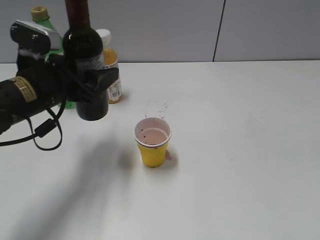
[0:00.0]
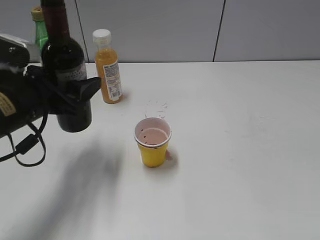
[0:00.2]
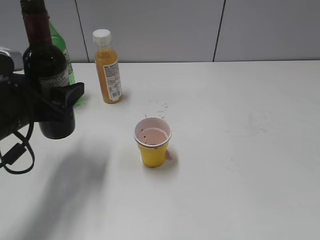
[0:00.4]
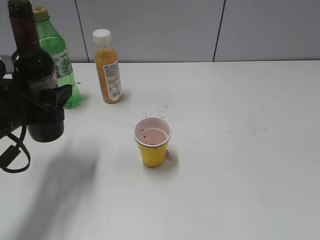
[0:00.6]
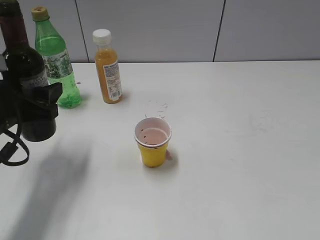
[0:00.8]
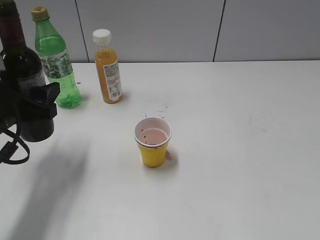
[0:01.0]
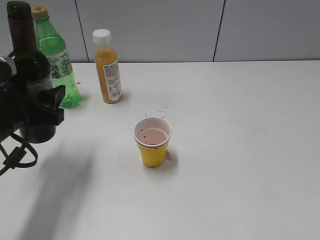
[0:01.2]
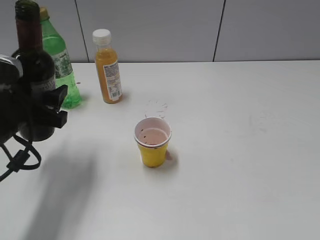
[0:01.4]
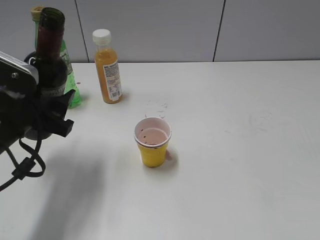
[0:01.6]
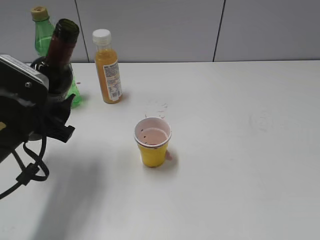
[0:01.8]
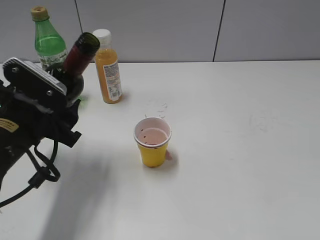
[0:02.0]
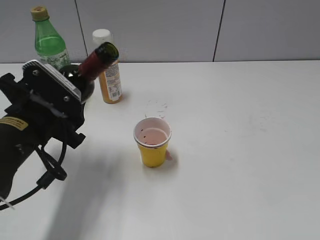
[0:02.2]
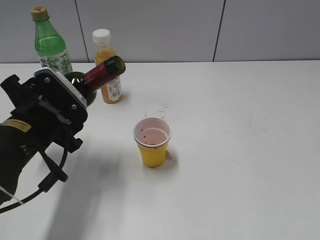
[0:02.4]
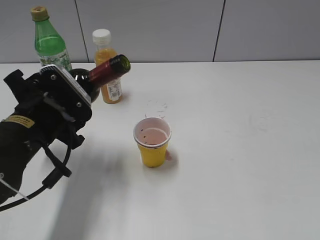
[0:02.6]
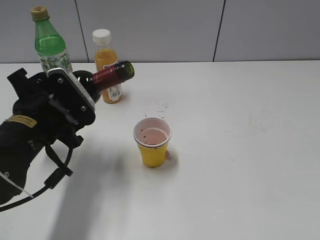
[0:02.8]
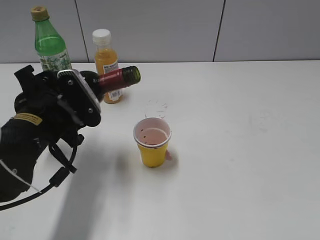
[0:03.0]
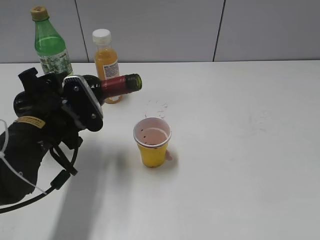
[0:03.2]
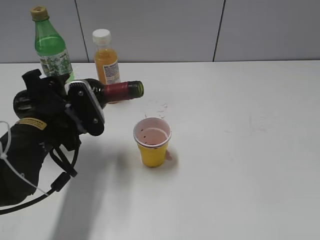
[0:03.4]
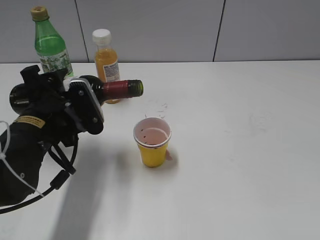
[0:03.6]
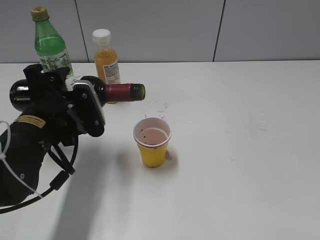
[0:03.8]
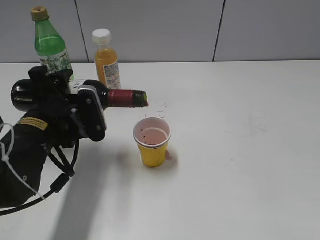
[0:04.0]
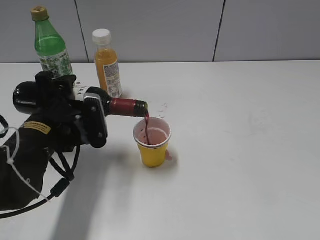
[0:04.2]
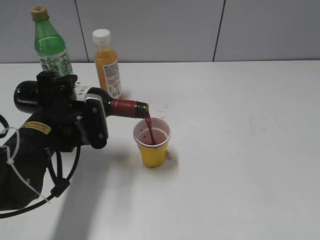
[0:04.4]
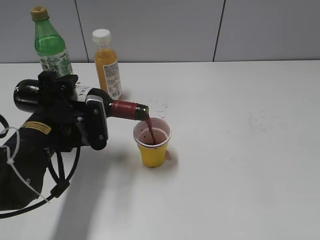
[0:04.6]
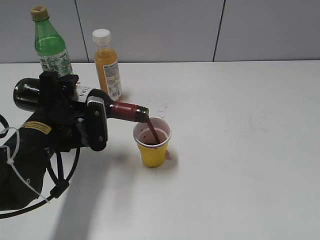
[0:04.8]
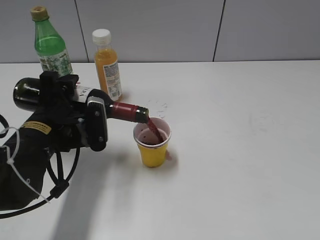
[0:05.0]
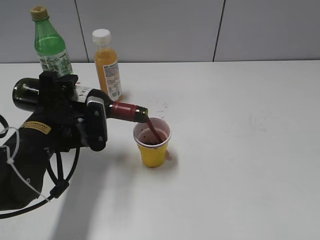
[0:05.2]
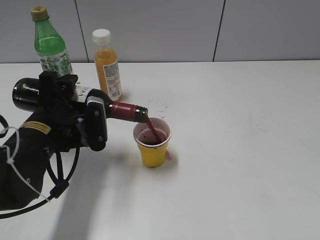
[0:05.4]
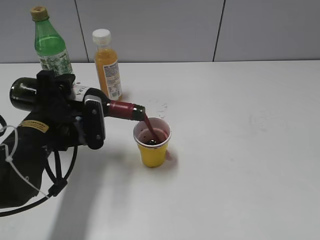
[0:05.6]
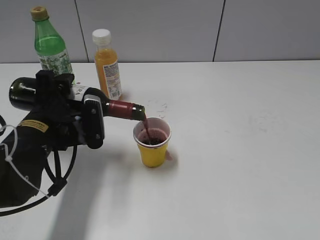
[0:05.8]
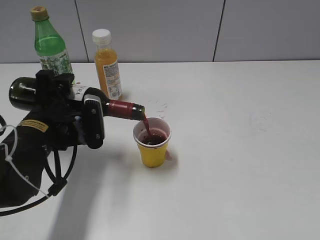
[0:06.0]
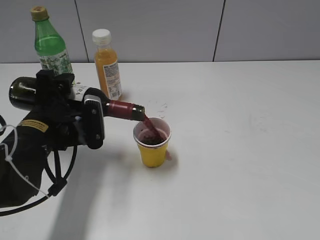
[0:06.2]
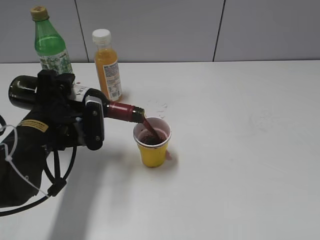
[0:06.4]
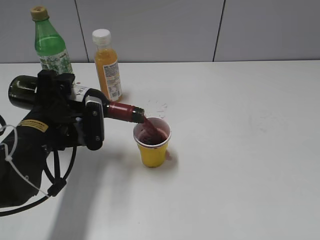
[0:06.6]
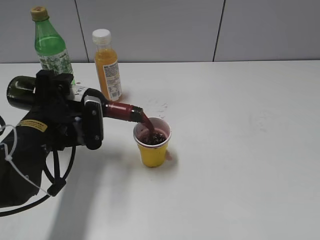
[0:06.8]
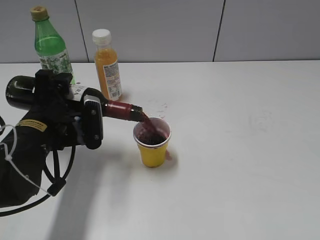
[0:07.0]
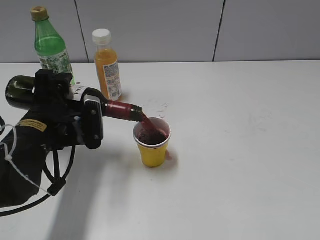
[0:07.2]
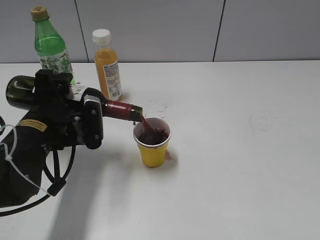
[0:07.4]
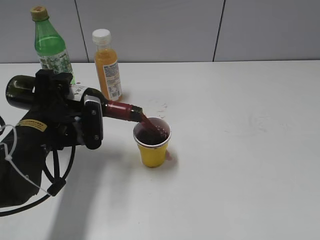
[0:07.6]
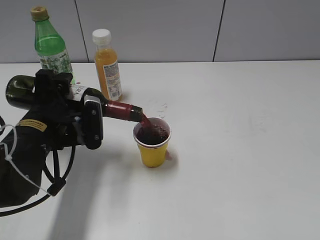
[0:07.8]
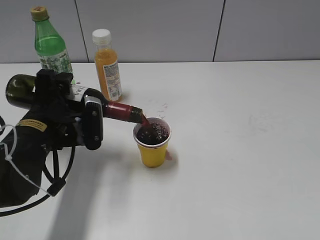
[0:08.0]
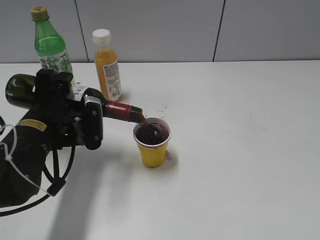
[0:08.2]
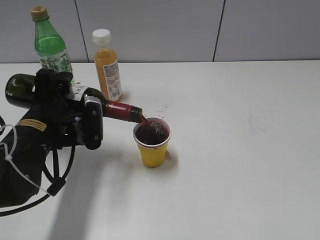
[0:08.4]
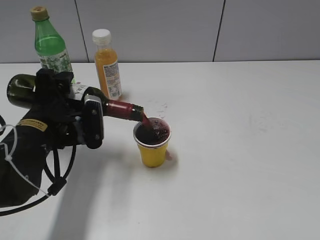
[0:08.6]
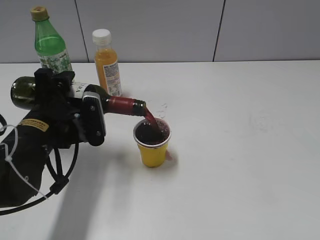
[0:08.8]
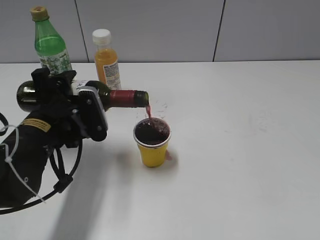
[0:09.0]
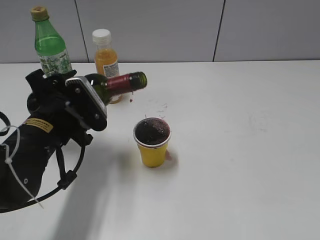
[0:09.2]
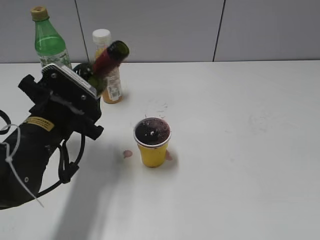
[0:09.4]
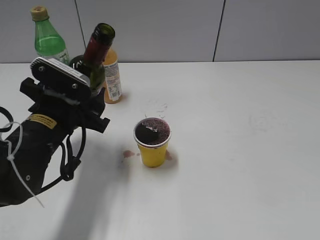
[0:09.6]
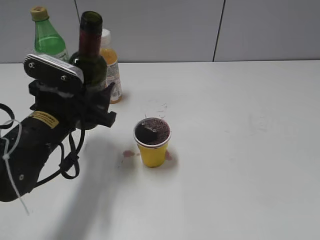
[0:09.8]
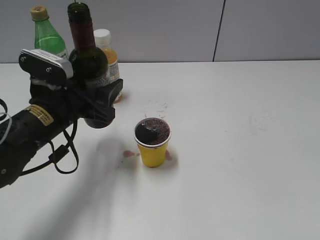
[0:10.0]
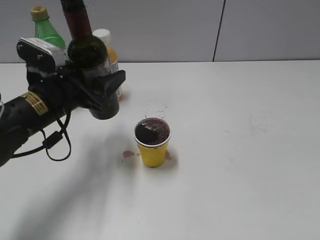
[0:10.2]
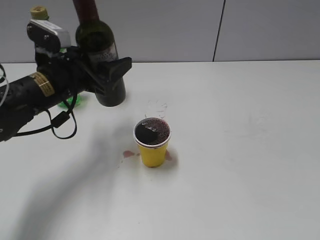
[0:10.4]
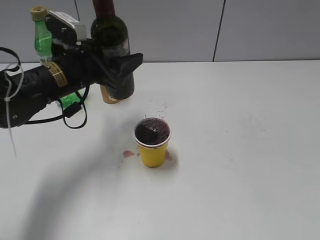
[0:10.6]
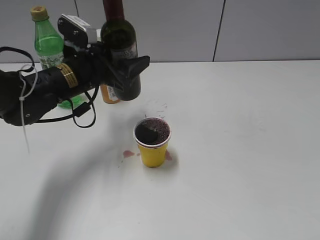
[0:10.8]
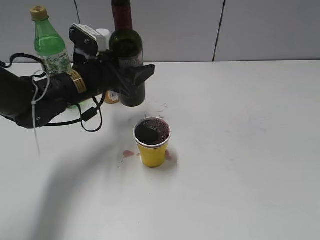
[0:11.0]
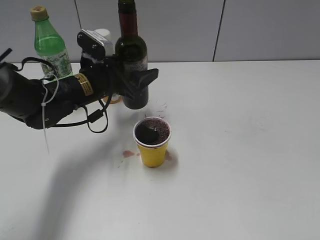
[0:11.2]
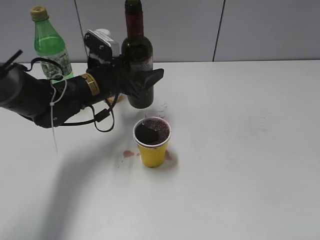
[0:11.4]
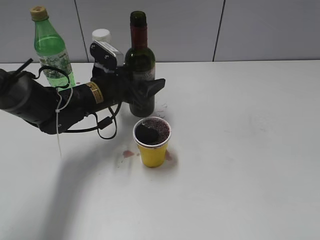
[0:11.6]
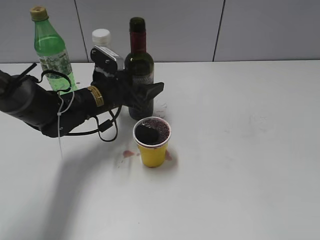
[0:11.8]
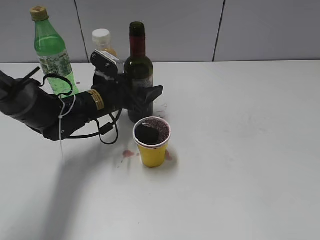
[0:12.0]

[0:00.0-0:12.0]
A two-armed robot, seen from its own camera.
Step, 0:00.0 to 0:09.4: Pour the red wine from bottle to cup with left gripper.
0:00.0 to 0:01.6: The left gripper goes roughly 5 cm backward.
0:04.4 to 0:06.0: The two grippers keep their place.
0:06.0 to 0:07.6: The two grippers keep their place.
0:07.6 to 0:09.0: The grippers move only a little.
0:09.0 to 0:10.4: The left gripper is displaced forward by about 5 cm.
0:10.4 to 0:12.0: The left gripper goes approximately 10 cm downward, forward and to the right.

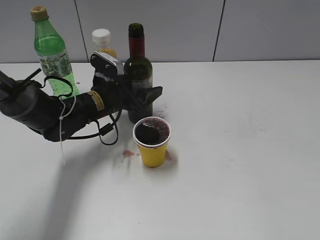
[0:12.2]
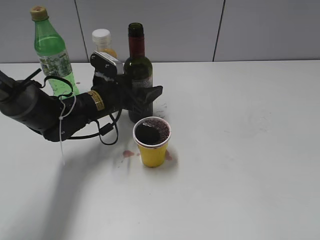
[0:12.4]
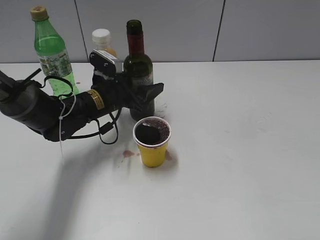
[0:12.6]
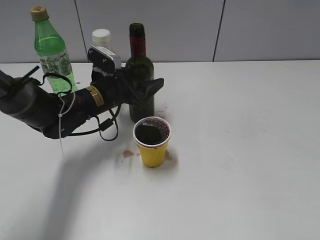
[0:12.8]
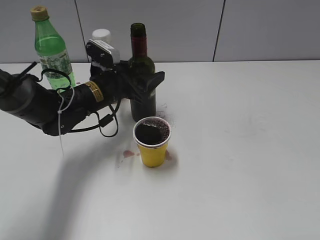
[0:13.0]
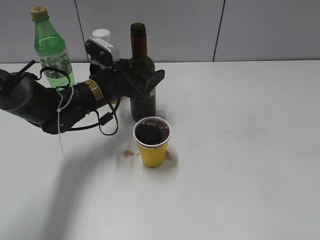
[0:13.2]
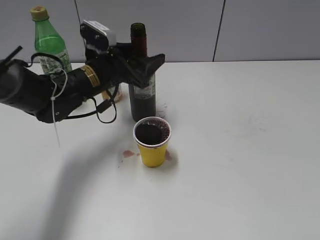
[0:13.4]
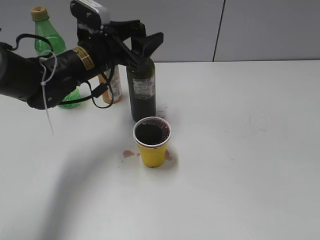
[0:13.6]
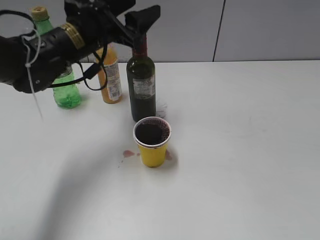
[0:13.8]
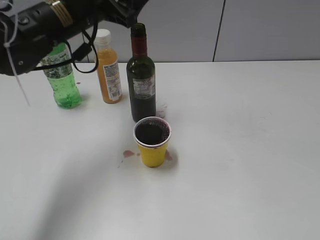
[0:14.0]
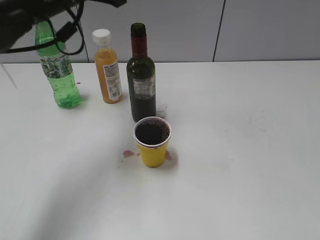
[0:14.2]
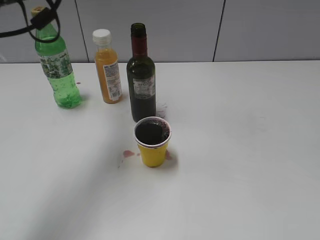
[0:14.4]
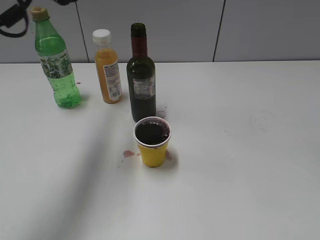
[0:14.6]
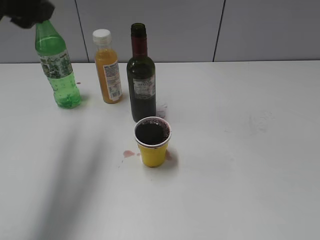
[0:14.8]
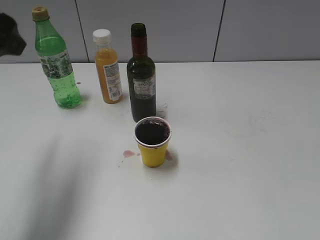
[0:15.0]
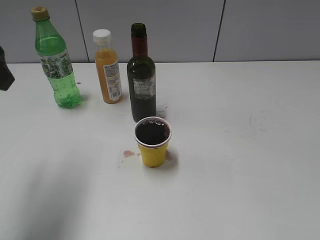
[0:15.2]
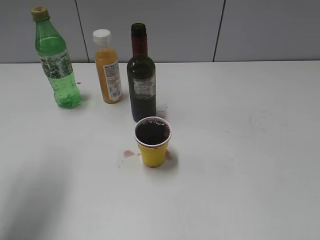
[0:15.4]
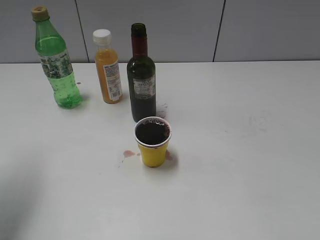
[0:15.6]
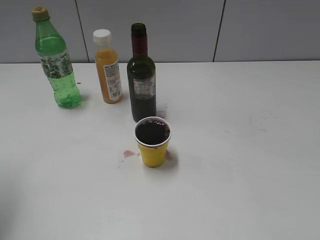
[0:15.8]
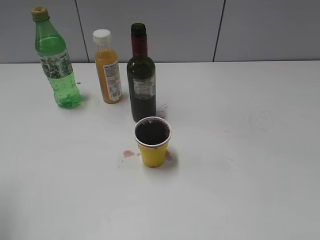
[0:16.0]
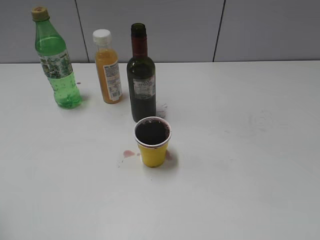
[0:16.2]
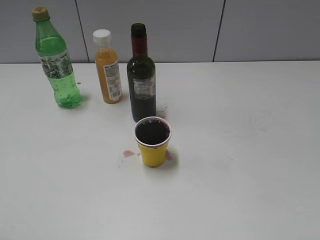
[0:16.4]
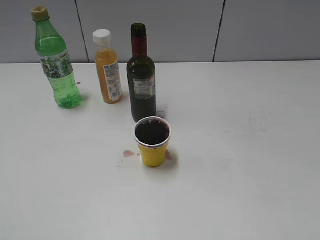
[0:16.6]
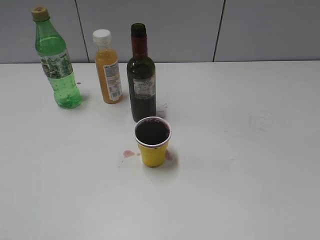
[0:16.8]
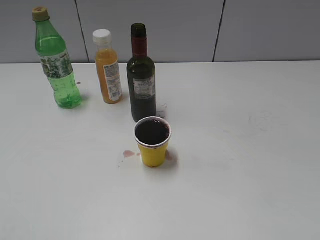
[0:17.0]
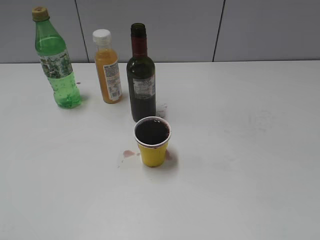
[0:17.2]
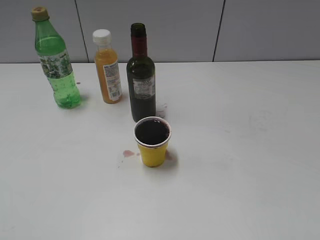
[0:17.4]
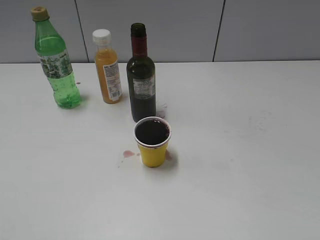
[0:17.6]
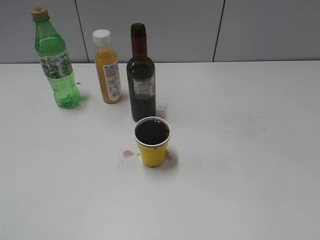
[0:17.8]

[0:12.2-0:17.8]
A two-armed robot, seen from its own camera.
0:12.2 to 0:13.6: The left gripper moves upward, approximately 10 cm.
0:13.6 to 0:15.0: The left gripper travels upward, backward and to the left by roughly 20 cm.
0:15.0 to 0:16.4: The left gripper goes approximately 20 cm backward, to the left and downward.

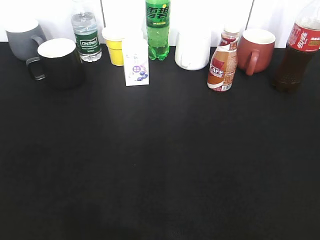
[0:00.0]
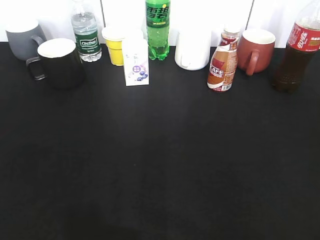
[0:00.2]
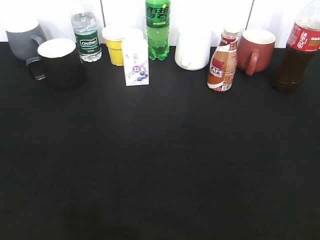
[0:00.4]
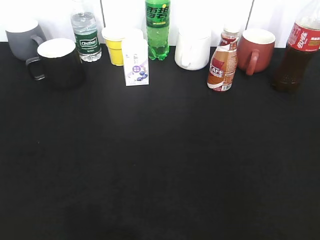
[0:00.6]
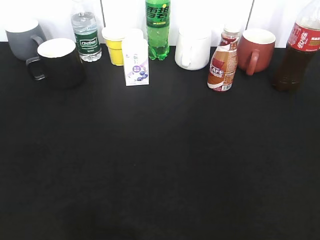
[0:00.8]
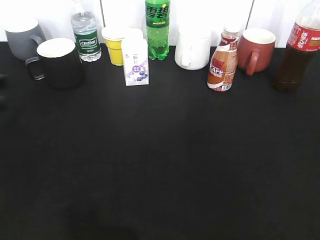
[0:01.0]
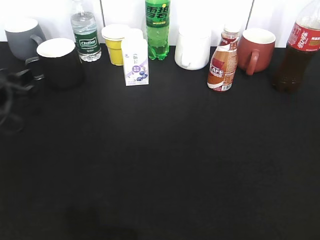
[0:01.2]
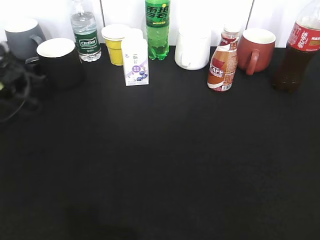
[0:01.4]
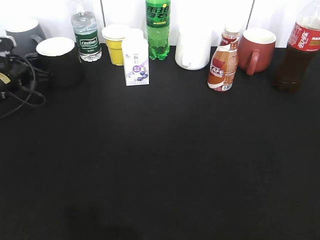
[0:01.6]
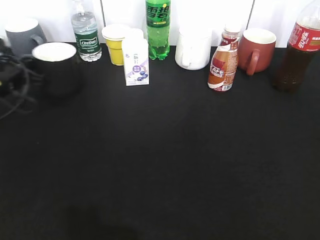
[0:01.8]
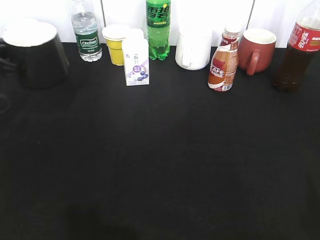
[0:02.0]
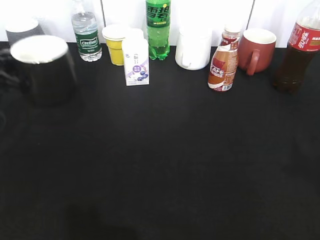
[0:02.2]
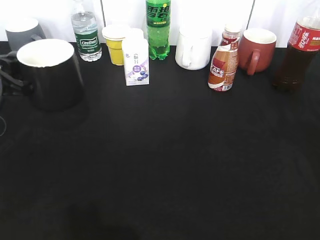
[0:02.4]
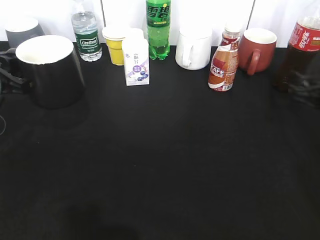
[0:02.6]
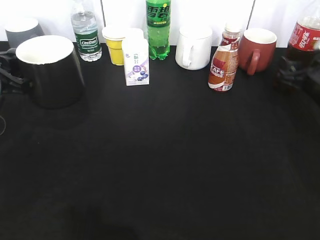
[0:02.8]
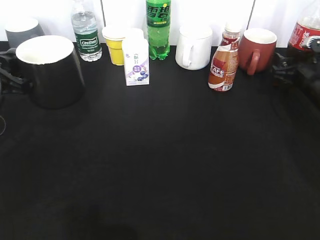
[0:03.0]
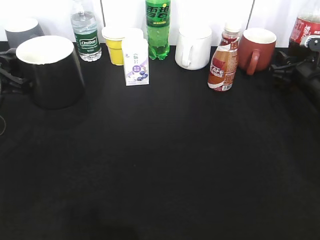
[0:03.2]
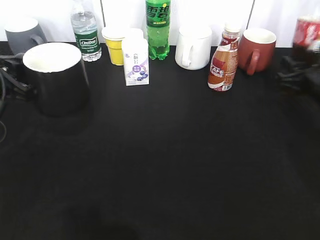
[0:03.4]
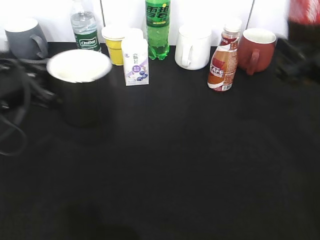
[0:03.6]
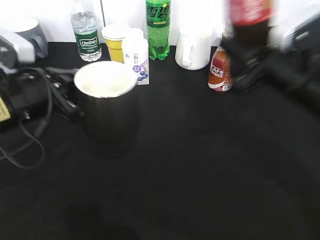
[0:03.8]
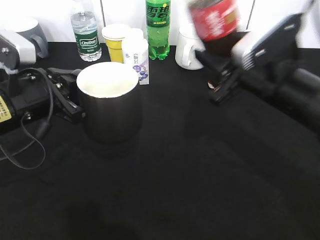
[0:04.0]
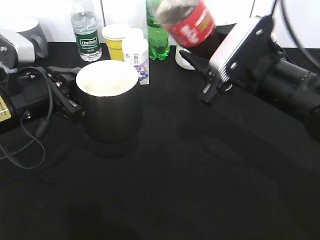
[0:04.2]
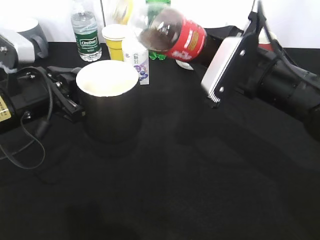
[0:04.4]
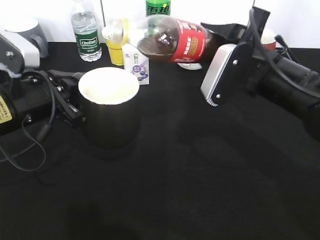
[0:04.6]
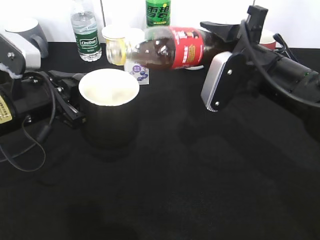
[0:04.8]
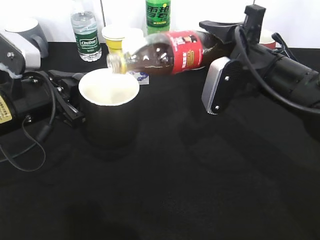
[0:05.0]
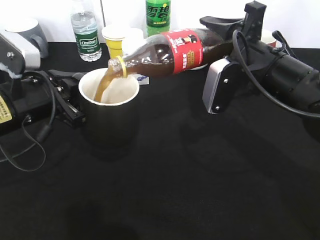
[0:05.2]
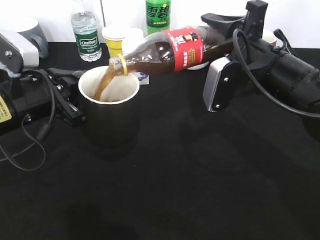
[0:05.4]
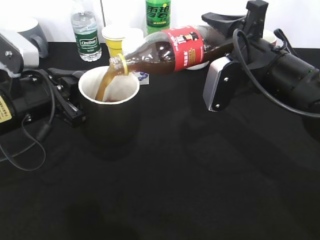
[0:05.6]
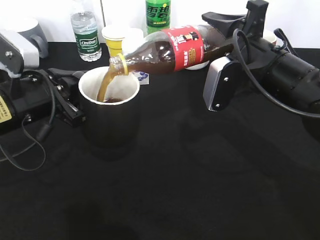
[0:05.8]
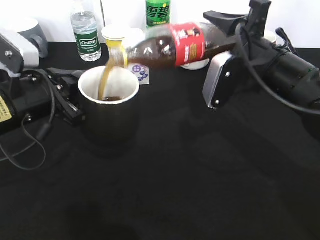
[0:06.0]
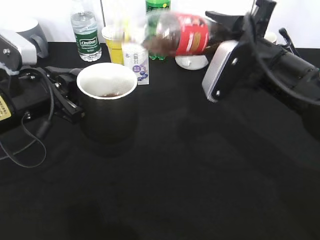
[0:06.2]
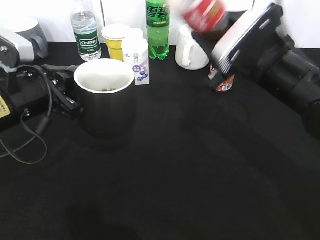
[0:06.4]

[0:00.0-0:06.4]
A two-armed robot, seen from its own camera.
Step, 0:01.8 to 0:02.2: Lift the black cup with left gripper.
Step, 0:02.6 to 0:03.2: Grasp the bottle with cola with right gripper.
Step, 0:03.4 to 0:06.2: Pour the cola from bottle to cup with right gripper.
0:00.0 to 0:01.6: The left gripper is displaced forward by about 40 cm, and closes.
0:01.6 to 0:03.2: The right gripper is displaced forward and downward by about 40 cm, and closes its fingers. Meanwhile the left gripper goes about 15 cm backward and upward.
0:03.2 to 0:04.8: The right gripper goes approximately 20 cm to the left, backward and upward, while the left gripper moves to the right, some 10 cm.
